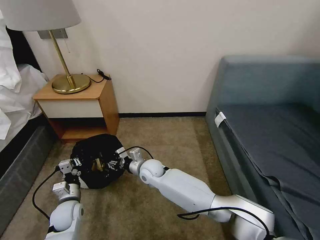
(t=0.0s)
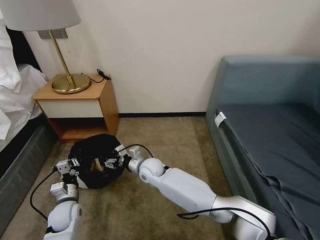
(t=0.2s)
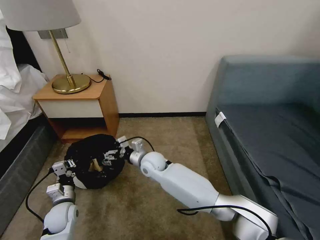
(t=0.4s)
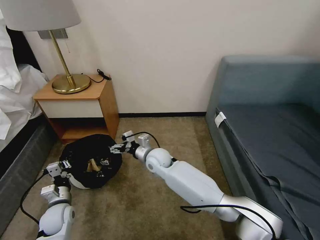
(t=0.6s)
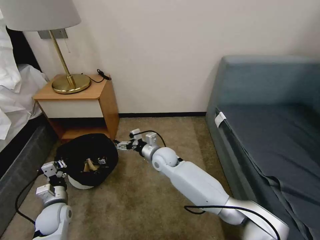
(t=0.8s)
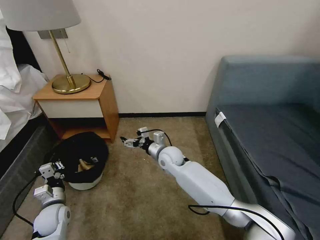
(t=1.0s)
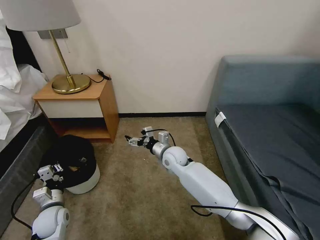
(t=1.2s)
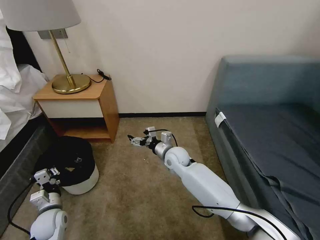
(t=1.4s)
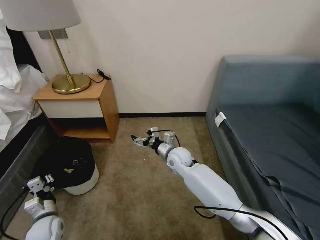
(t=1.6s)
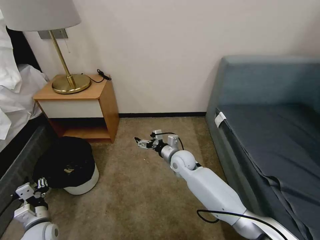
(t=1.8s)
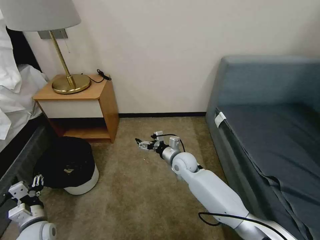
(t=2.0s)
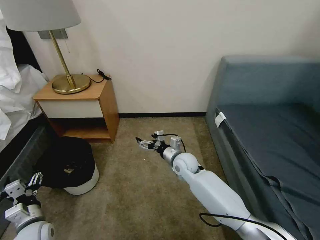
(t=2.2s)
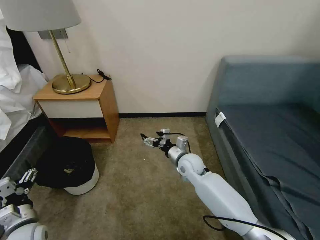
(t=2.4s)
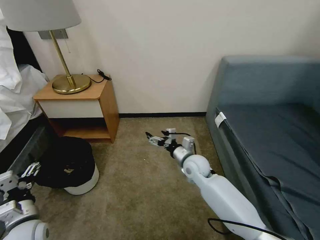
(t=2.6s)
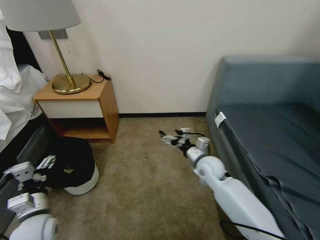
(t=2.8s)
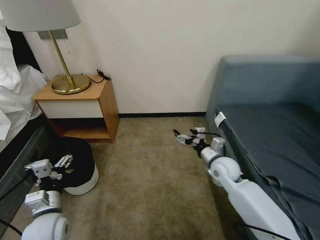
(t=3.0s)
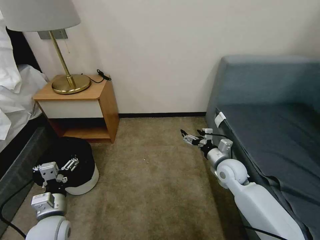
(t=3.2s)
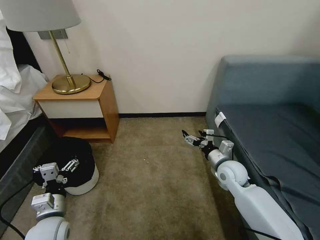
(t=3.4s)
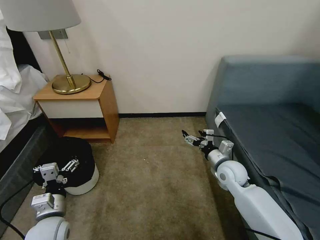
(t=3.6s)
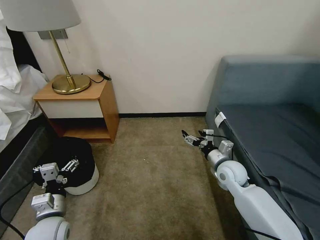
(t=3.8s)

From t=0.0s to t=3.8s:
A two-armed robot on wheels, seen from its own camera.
Task of the whole recording: Pick up the trash bin, then pick up the garbage on the floor and place it into the trash bin.
From t=0.0s to t=1.2s: The right gripper shifts approximately 10 cm to the right, and opens up.
From t=1.2s to t=2.6s: The right gripper goes roughly 10 cm to the right, while the left gripper is displaced upward and backward by some 10 cm, and opens its fingers.
From t=2.6s to t=3.8s: The left gripper travels to the right by some 5 cm; the right gripper shifts about 10 cm to the right.
